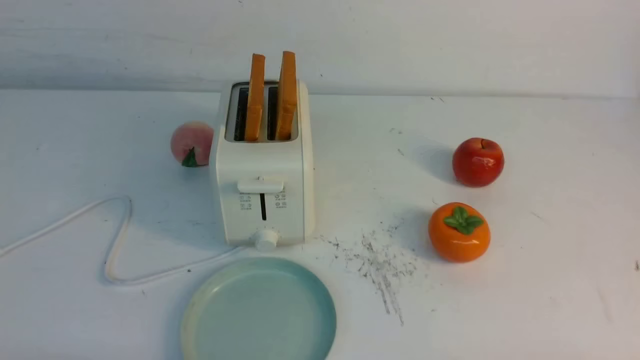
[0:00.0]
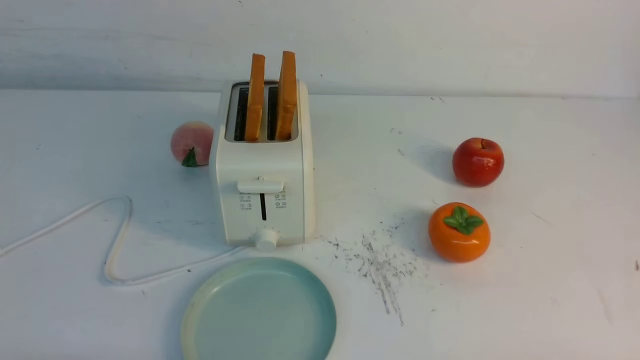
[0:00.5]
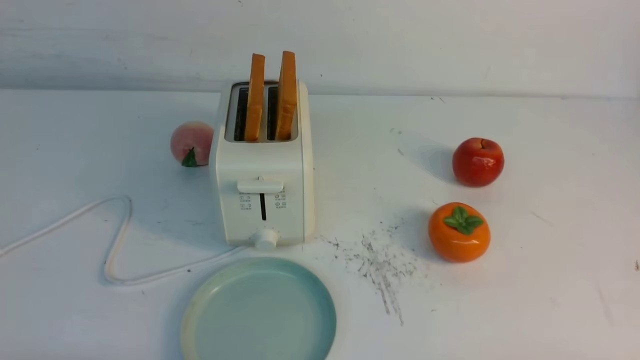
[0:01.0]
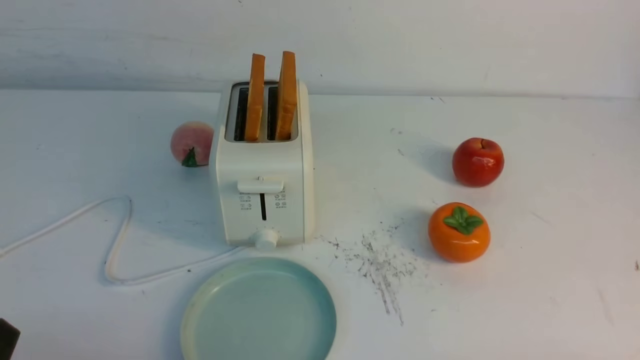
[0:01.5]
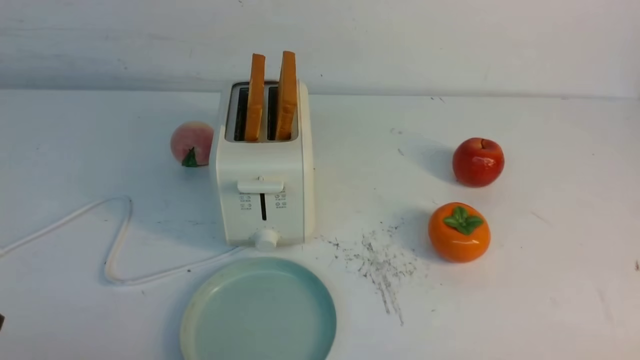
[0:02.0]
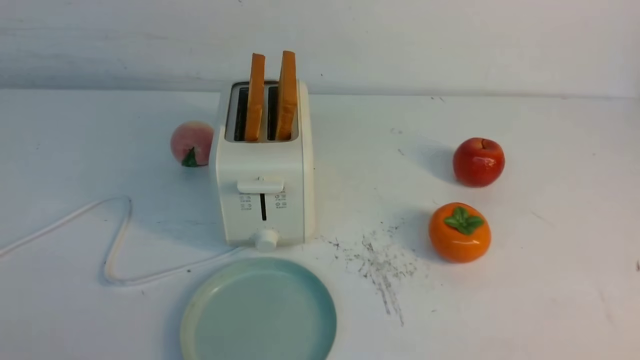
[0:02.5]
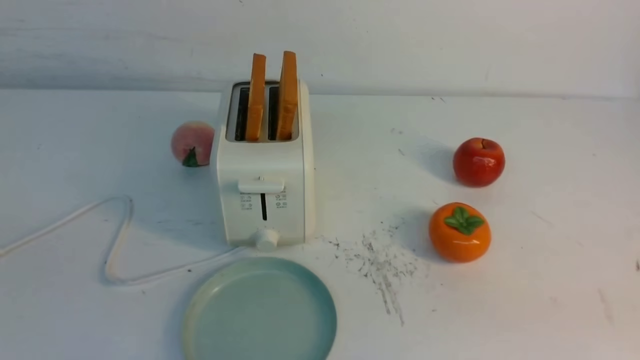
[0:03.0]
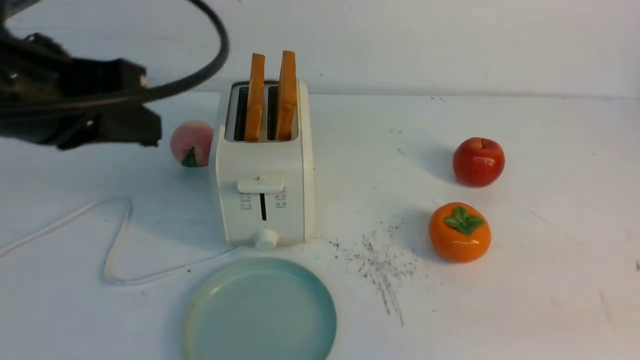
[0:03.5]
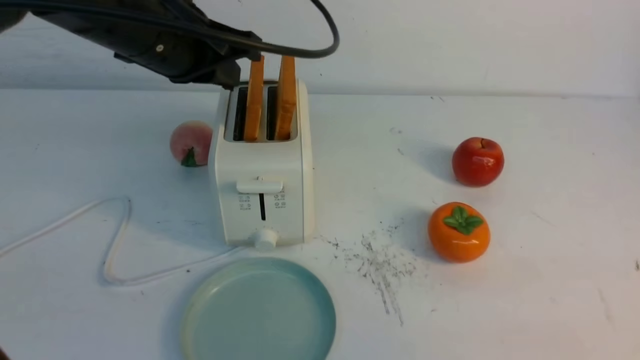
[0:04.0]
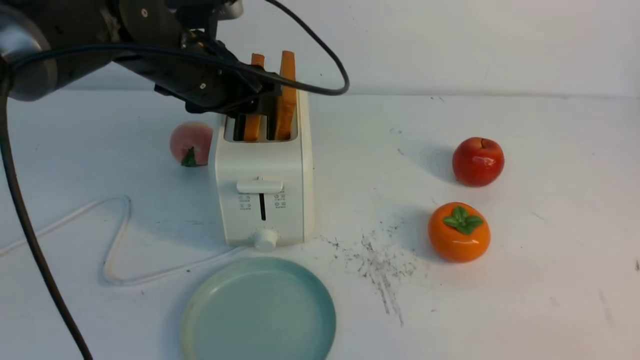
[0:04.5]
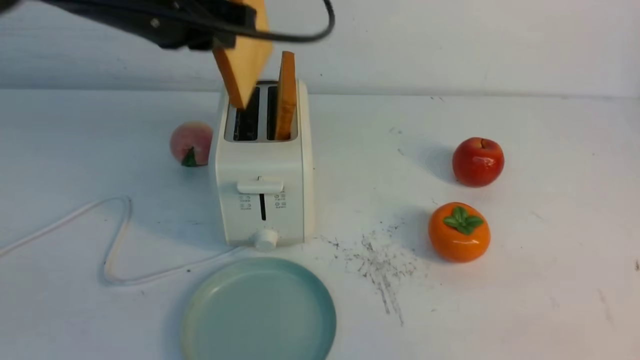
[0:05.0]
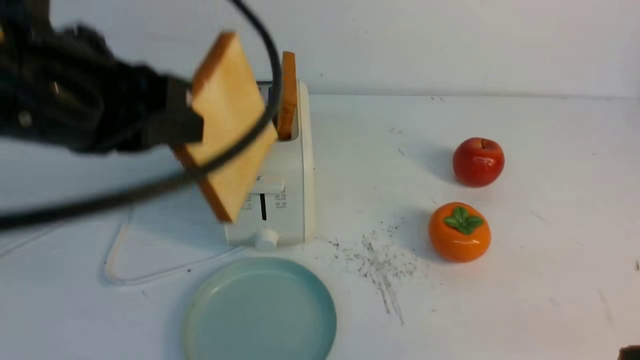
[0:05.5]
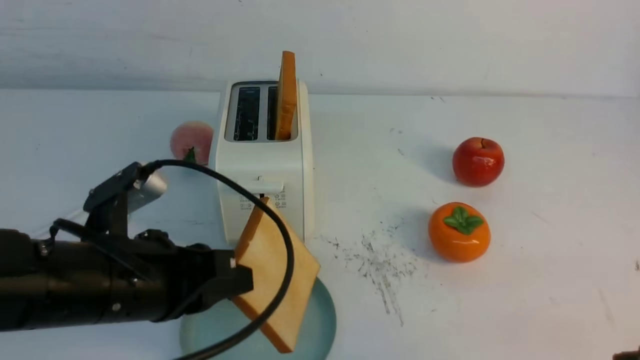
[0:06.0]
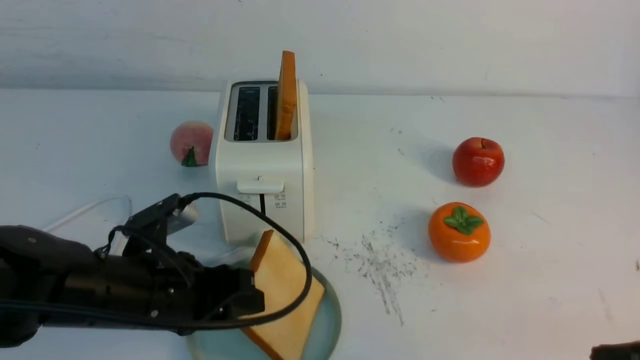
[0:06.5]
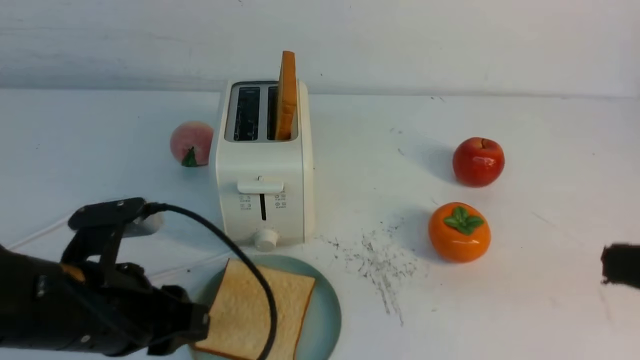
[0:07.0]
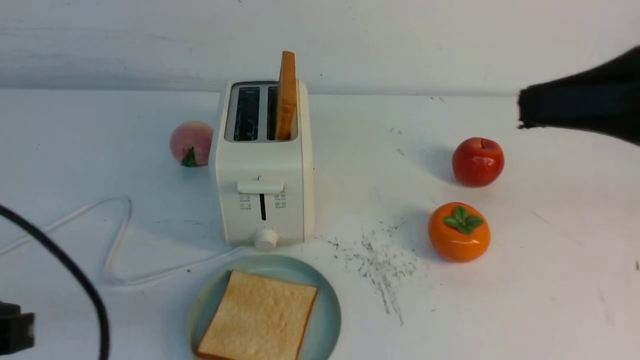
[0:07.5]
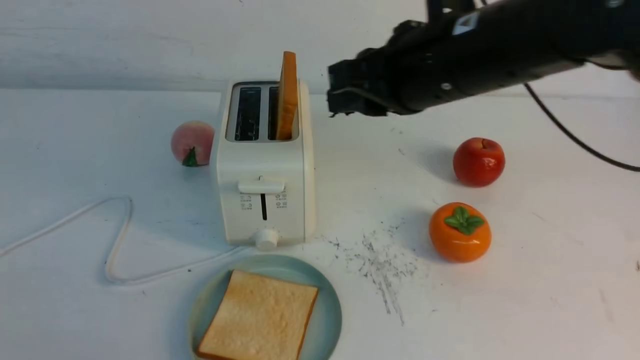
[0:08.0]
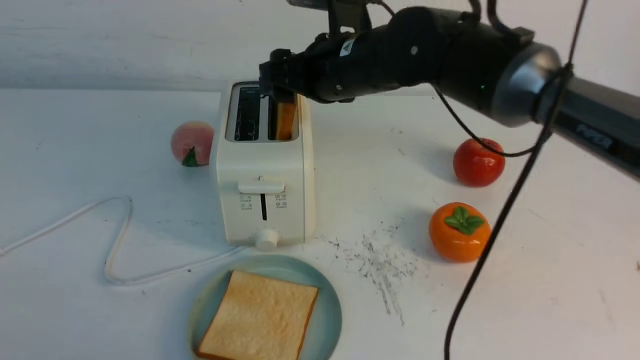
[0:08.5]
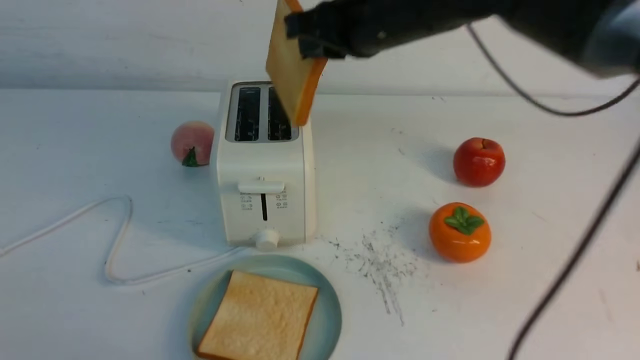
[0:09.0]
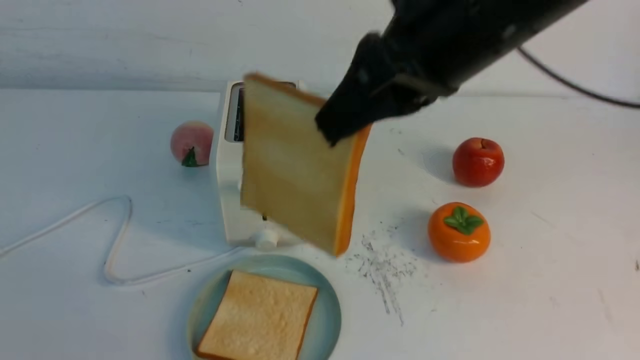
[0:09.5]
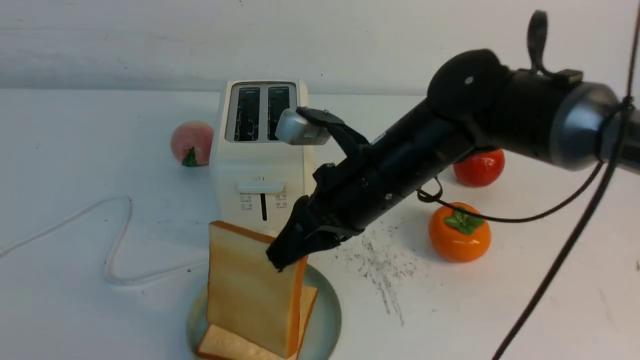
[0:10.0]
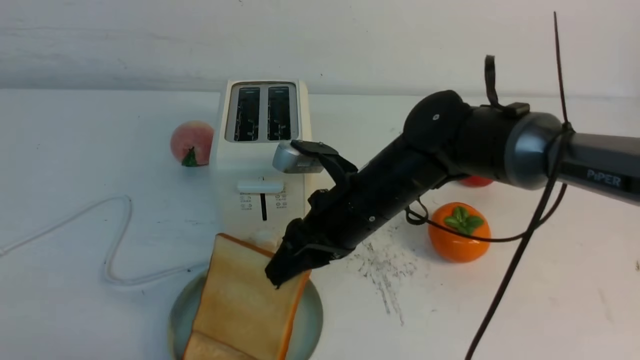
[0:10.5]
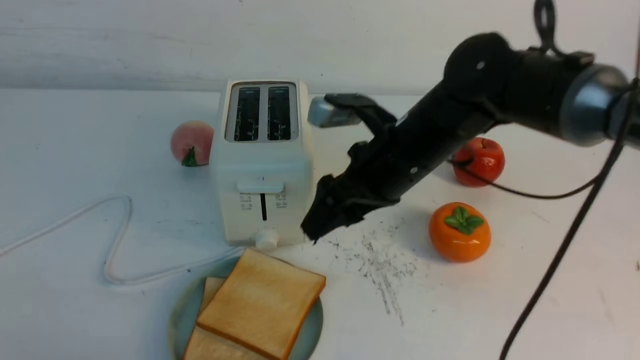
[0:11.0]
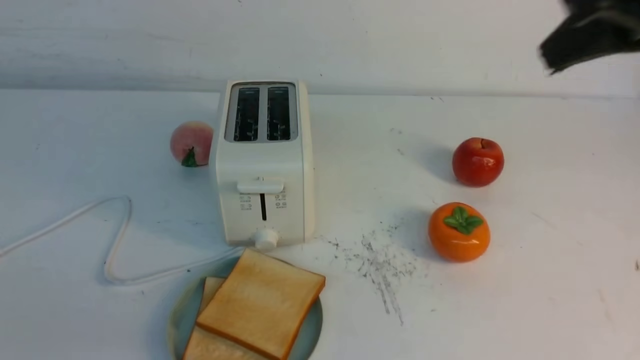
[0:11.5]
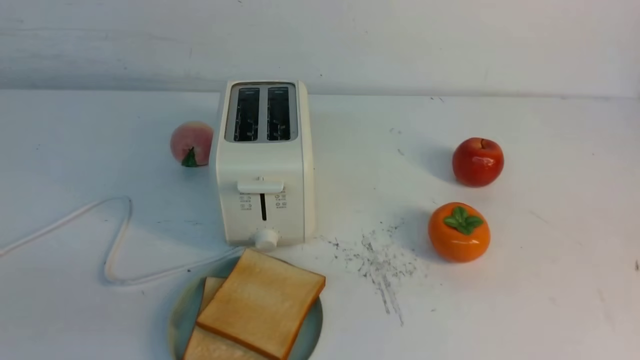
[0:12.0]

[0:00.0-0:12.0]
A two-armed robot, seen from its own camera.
Task of the whole recording: take toasted bread from bread machine on white table place on plate.
Step, 0:00.0 to 0:05.0: use the left arm to take out a slice of bread.
Step, 0:05.5 to 0:07.0: use the left arm to put a slice of bread into the empty plate.
Step, 0:07.5 to 0:08.5: use the right arm to take out a slice of bread.
Step, 0:09.0 to 0:11.0: use the right arm to put a slice of bread into the plate.
0:02.0 to 0:04.0: The left gripper heads forward and upward, covering roughly 35 cm, and closes. The right gripper is displaced upward and forward by approximately 10 cm, and closes up.
0:04.0 to 0:06.0: The left gripper shifts about 20 cm backward and downward, and opens and closes again.
0:06.0 to 0:08.0: The right gripper is displaced forward, to the left and upward by about 30 cm, and opens up. The left gripper moves backward, to the left and upward, some 20 cm, and opens, then closes once more.
0:08.0 to 0:10.0: The right gripper goes up and down, approximately 15 cm each way, reversing 2 times, and opens and closes again.
0:10.0 to 0:12.0: The right gripper goes about 40 cm backward, to the right and upward, and opens, then closes again.
